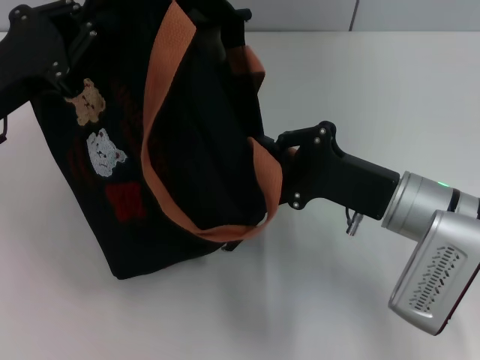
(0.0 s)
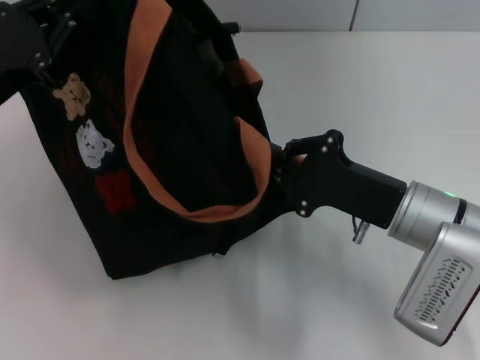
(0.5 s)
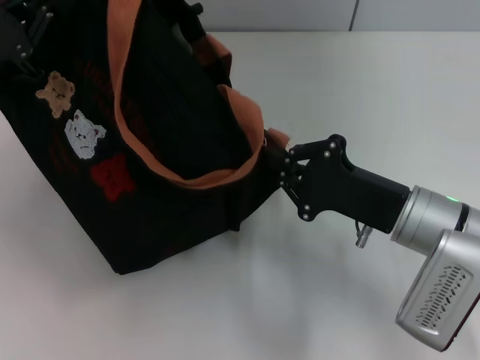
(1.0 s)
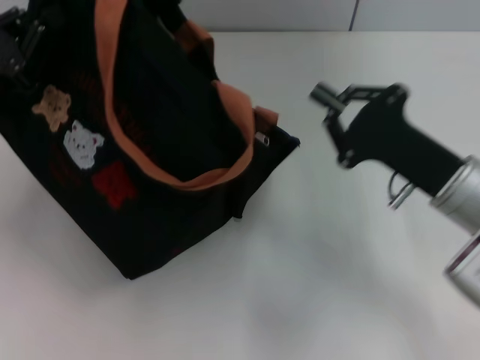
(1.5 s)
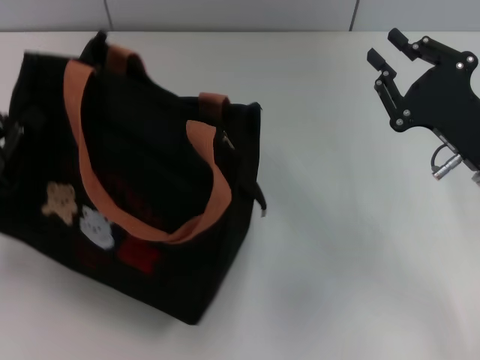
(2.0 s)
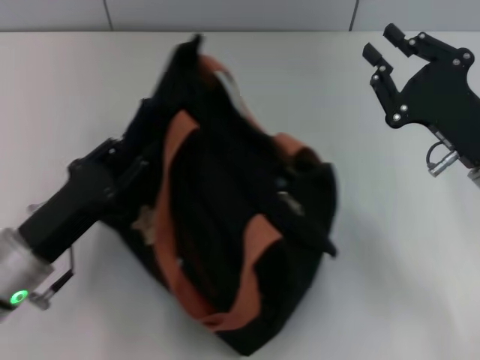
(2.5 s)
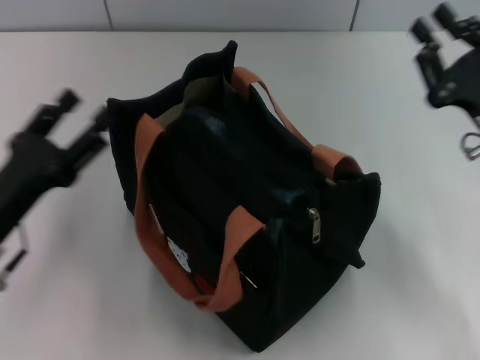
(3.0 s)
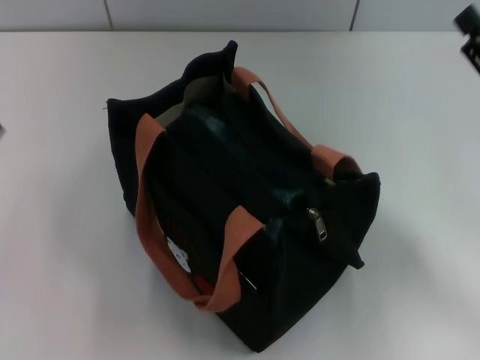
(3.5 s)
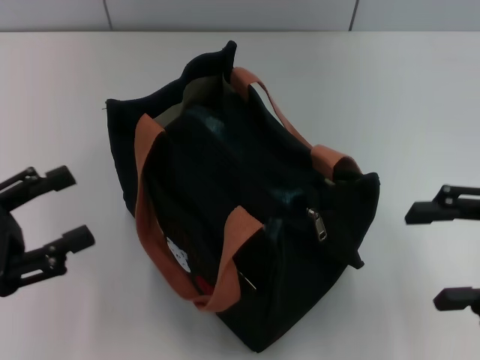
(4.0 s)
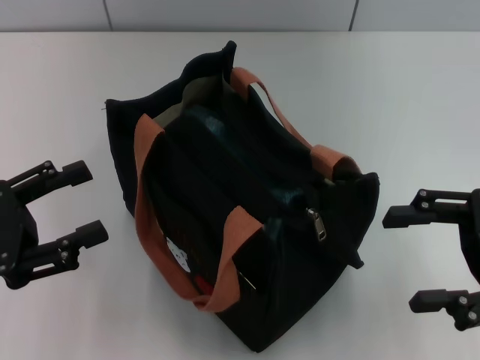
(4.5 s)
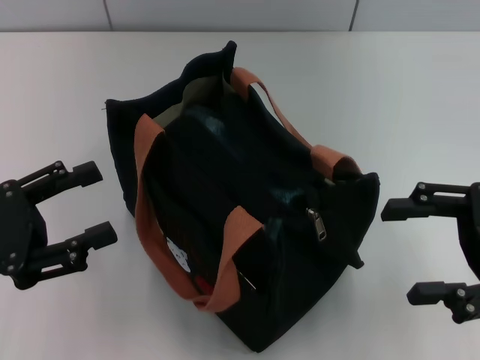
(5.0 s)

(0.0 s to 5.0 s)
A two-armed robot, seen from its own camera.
Step, 1.5 s - 2.5 s: Grab the bag with your left hand.
0.0 s - 2.5 s: The left gripper travels downward and backward by about 15 cm; the right gripper is displaced to the right by some 5 cm.
2.5 s - 5.0 s: The right gripper shifts roughly 10 cm upward and to the right, and opens its fingers; the left gripper moves to the left and upward, approximately 10 cm, and opens its fingers.

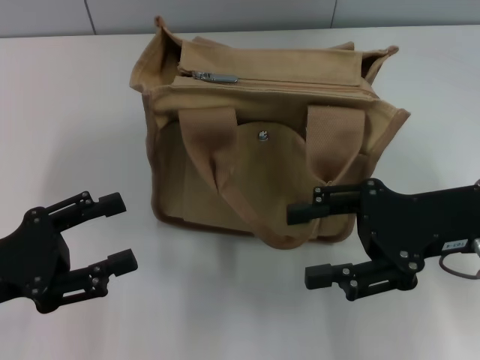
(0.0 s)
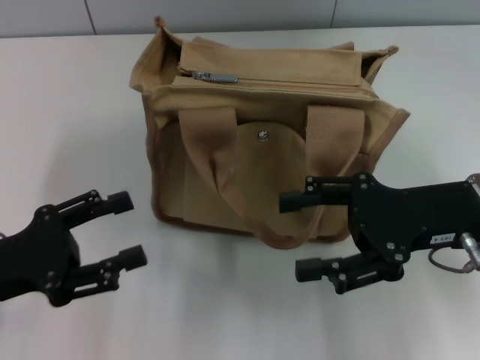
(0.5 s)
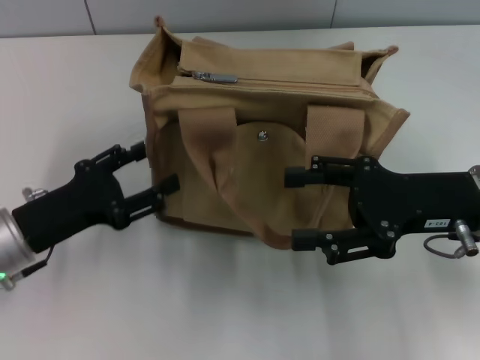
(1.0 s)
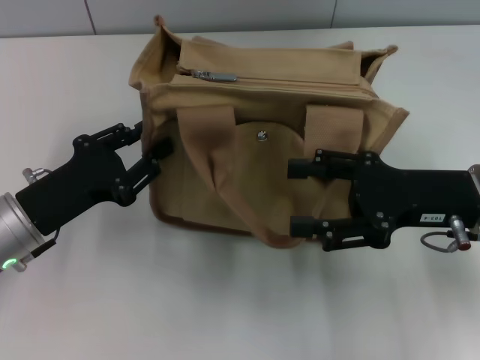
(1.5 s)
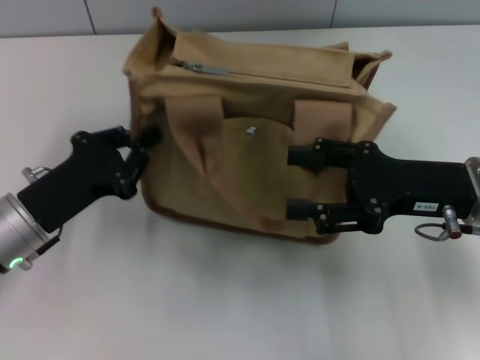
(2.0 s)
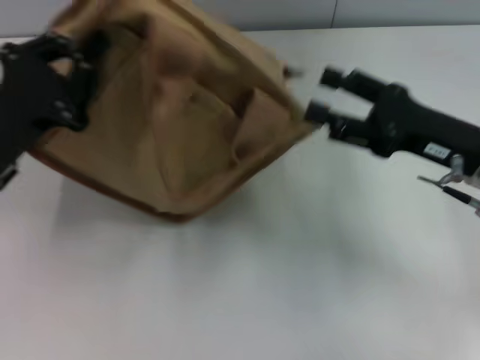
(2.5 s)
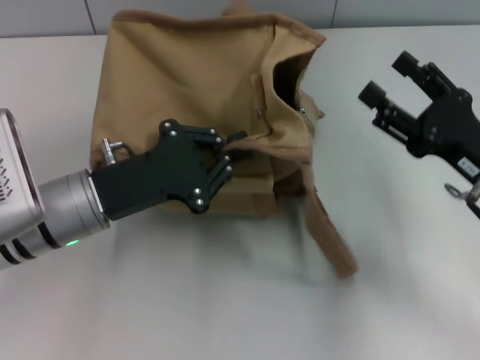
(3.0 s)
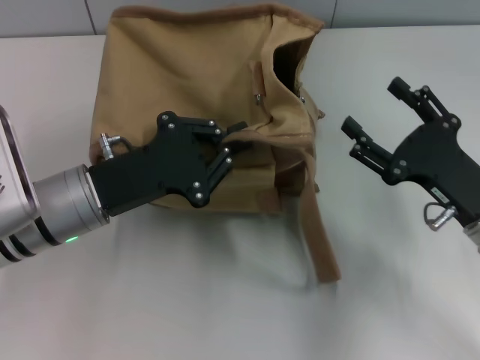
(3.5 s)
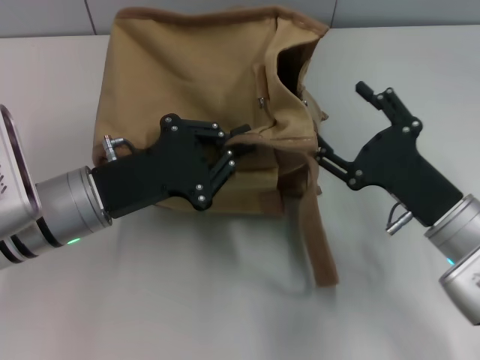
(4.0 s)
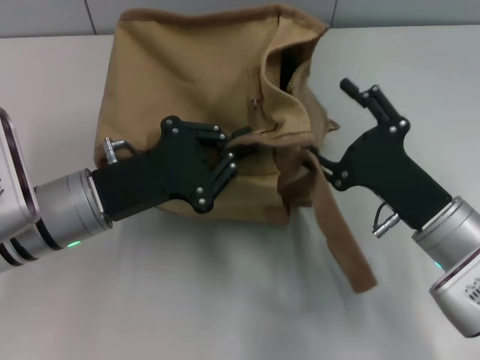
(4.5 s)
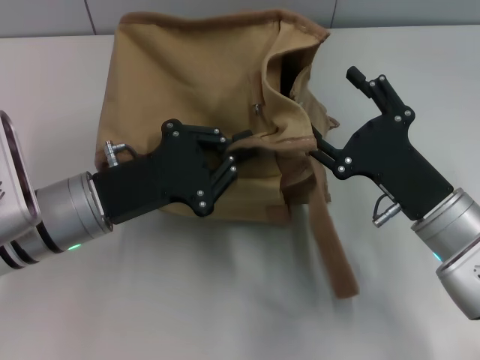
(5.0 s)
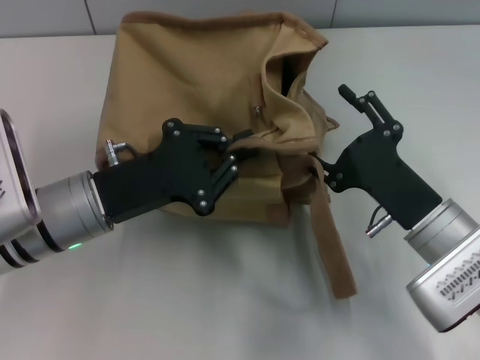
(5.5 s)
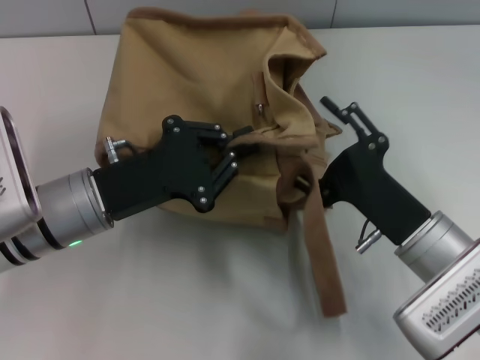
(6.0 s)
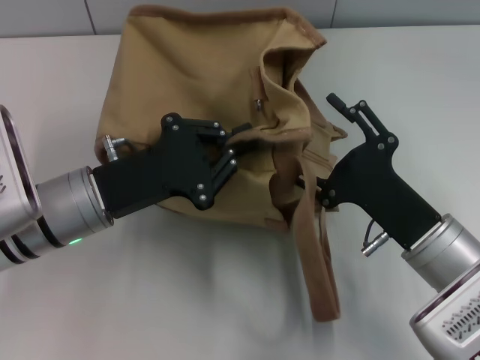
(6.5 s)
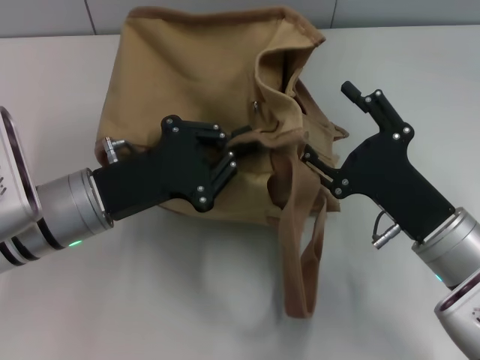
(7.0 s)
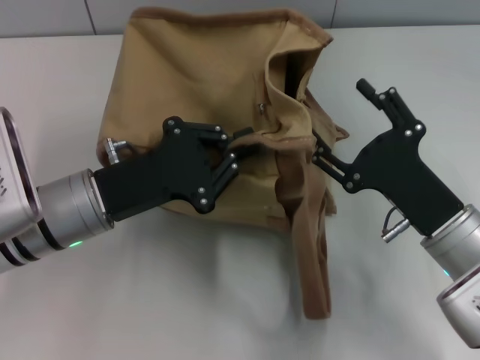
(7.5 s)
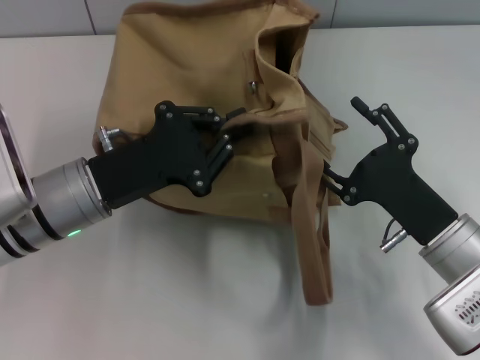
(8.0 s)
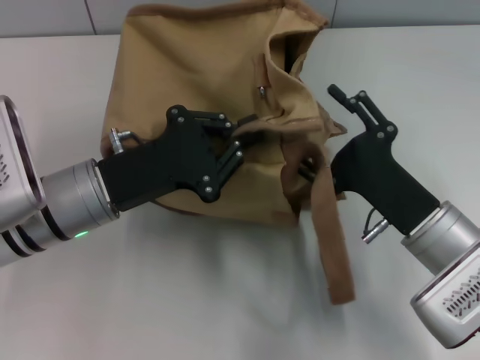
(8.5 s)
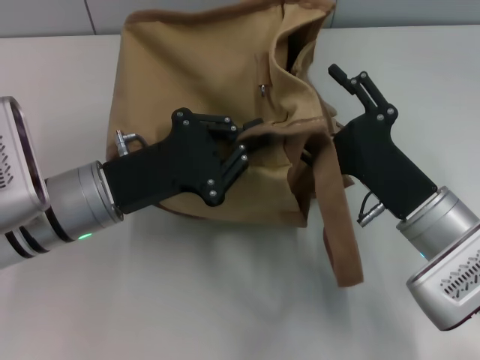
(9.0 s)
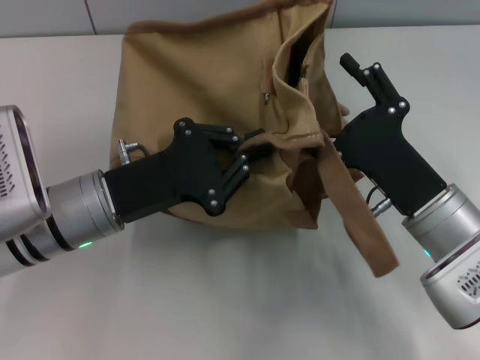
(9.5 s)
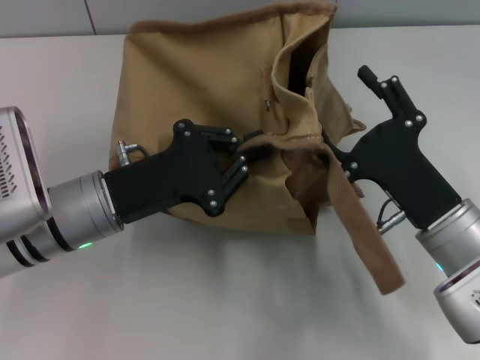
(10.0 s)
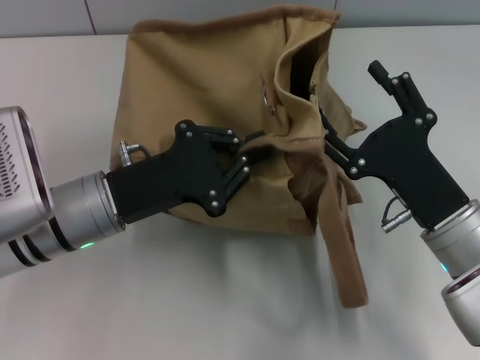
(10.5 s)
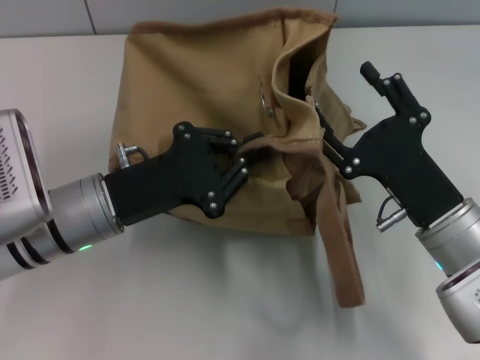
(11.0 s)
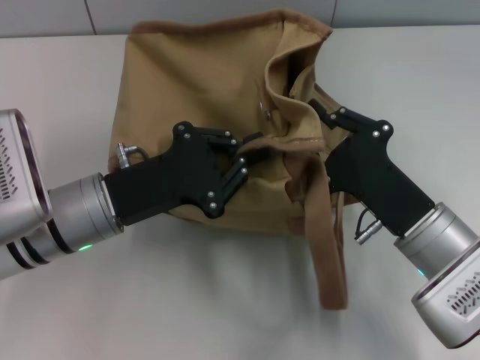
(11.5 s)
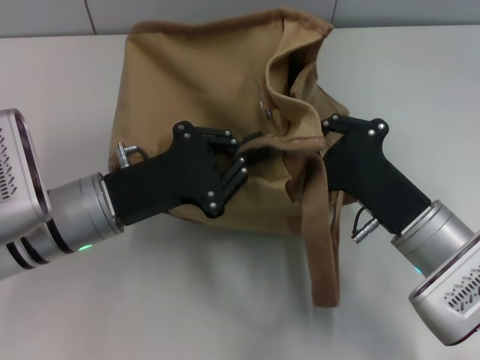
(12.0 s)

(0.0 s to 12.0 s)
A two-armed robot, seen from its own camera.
0.0 s - 2.0 s: The left gripper is displaced forward and to the right by roughly 10 cm, and closes its fingers.
2.0 s - 4.0 s: The left gripper goes roughly 5 cm to the right, while the right gripper goes some 5 cm downward.
10.0 s - 12.0 s: The right gripper closes.

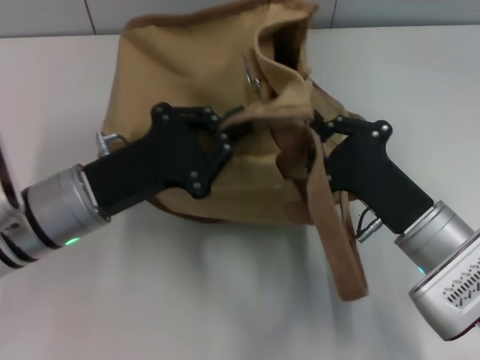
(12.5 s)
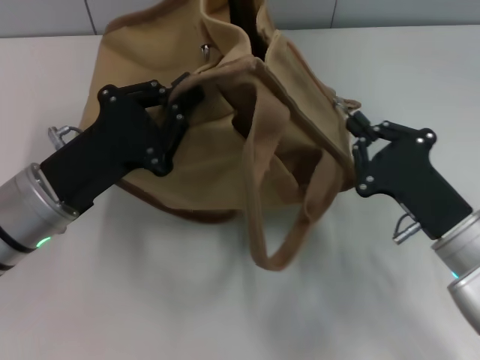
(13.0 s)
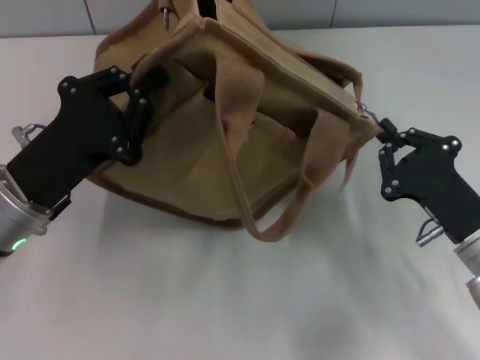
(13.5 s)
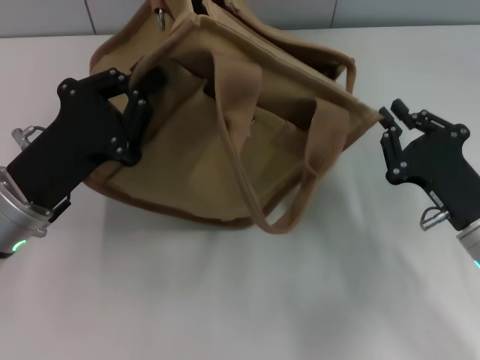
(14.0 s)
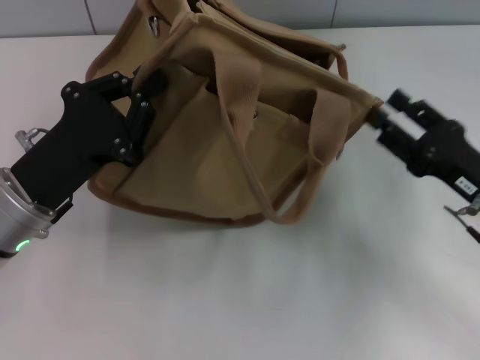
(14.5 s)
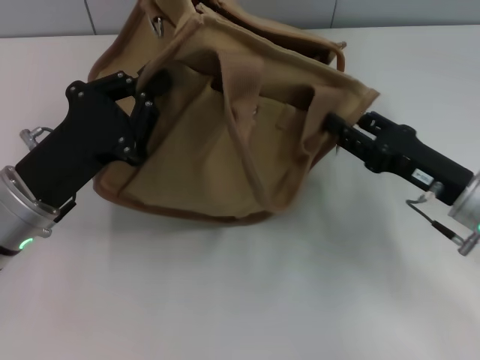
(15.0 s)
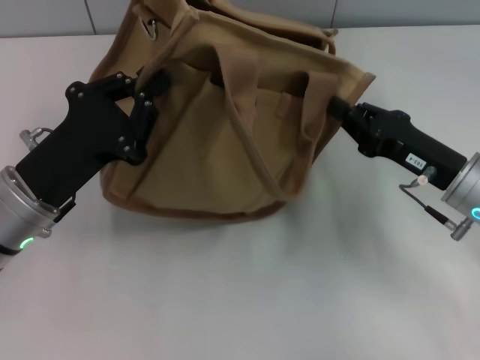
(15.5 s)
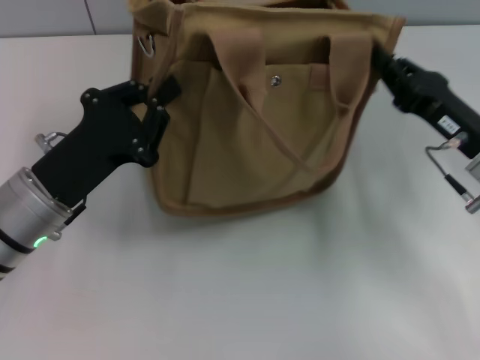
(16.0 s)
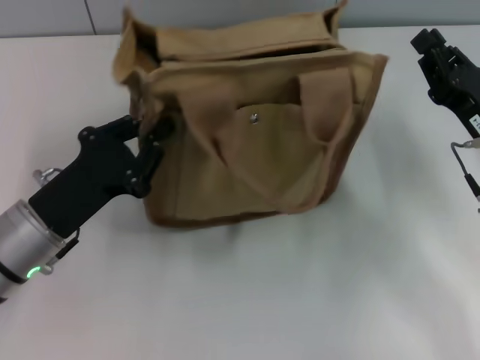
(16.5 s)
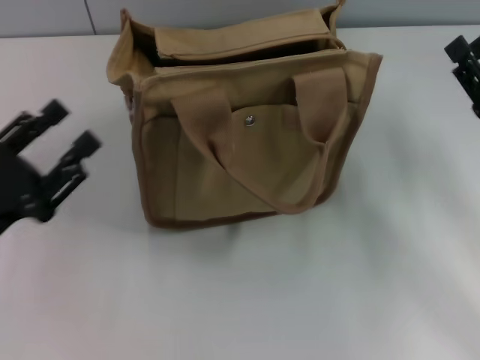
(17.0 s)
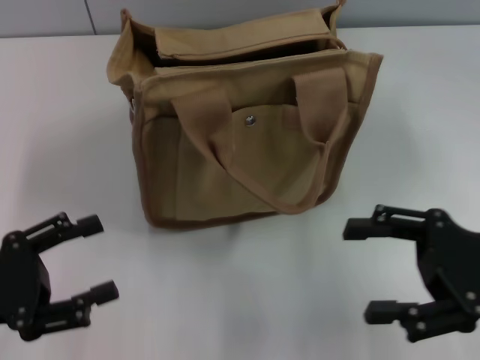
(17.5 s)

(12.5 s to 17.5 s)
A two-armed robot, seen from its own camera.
Step, 14.5 s - 16.5 s: Grab the bag with your left hand.
12.5 s - 15.0 s: The right gripper goes about 5 cm to the right, and opens up.
15.0 s - 17.5 s: The right gripper moves upward and backward, about 10 cm, and closes, then reopens; the left gripper goes some 15 cm to the left and backward, and opens its fingers.

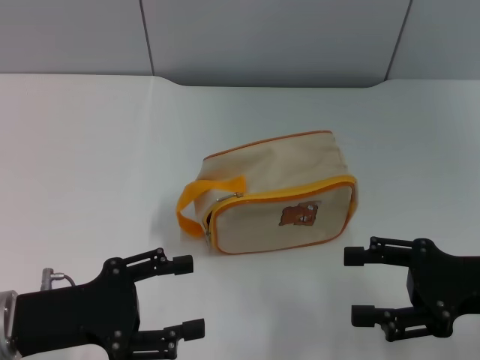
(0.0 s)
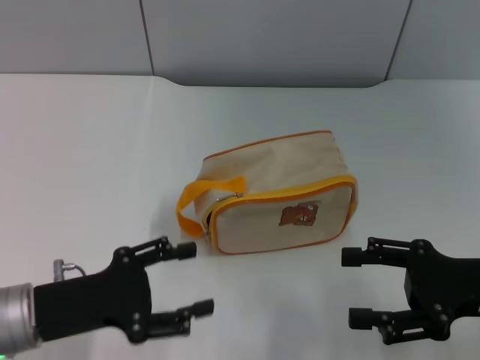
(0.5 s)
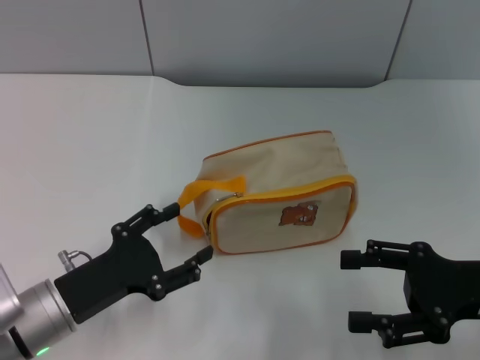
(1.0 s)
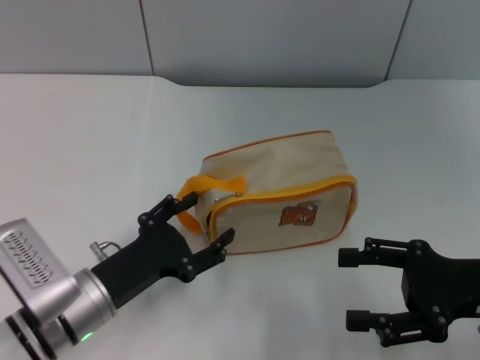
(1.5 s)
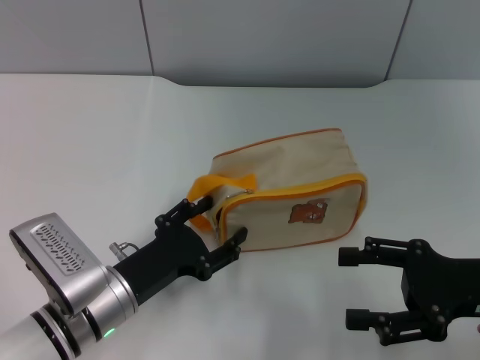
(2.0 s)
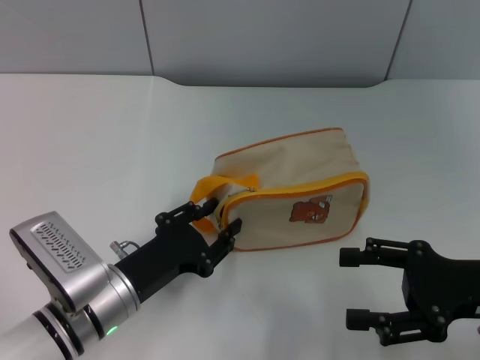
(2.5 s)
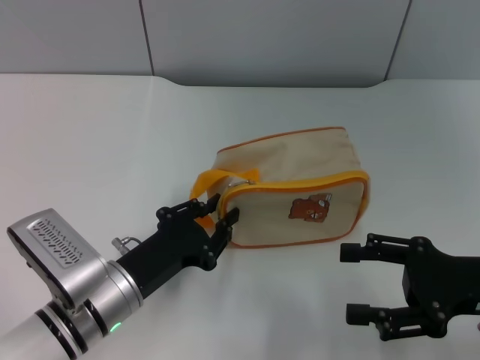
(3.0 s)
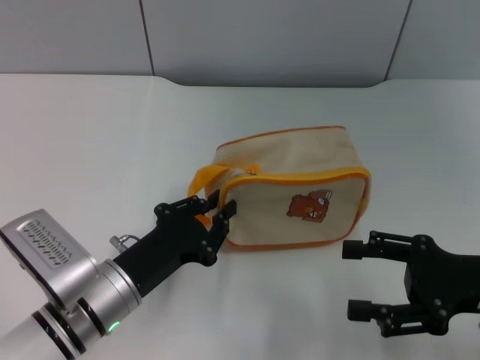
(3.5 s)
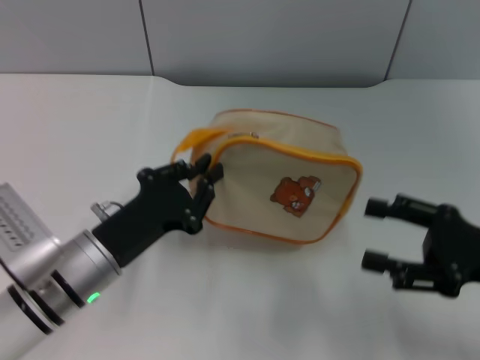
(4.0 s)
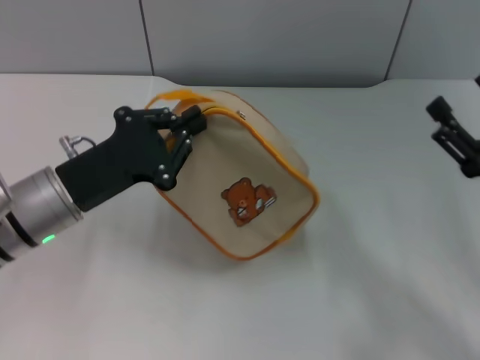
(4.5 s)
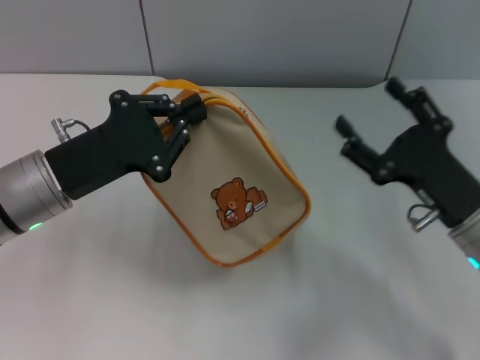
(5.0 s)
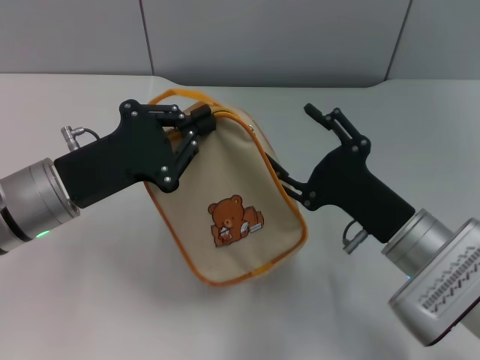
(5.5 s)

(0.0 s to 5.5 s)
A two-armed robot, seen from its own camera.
Step, 0.0 s - 3.5 s: Pick up the bag with left gripper.
0.0 s - 2.0 s: The left gripper heads to the right and downward, covering some 10 cm.
2.0 s - 3.5 s: The left gripper closes its fingers.
3.5 s - 5.5 s: The left gripper heads upward and forward, covering some 10 cm, while the right gripper heads to the left, covering some 10 cm.
